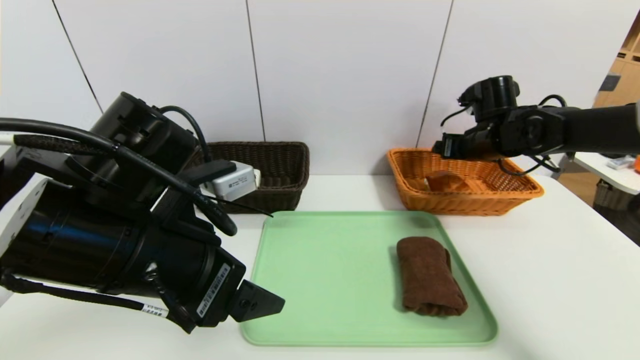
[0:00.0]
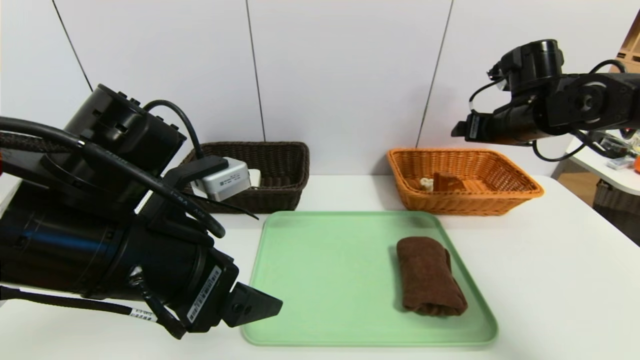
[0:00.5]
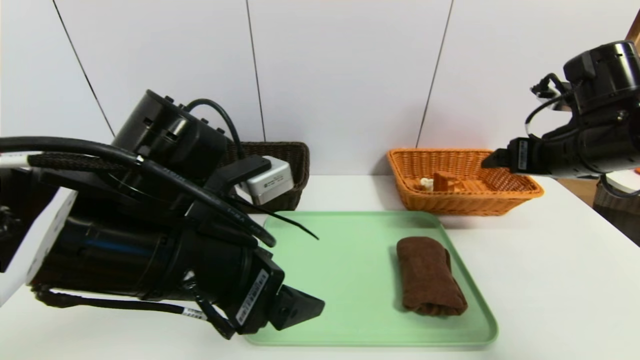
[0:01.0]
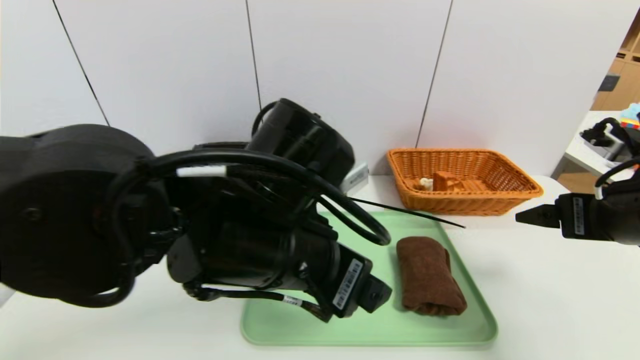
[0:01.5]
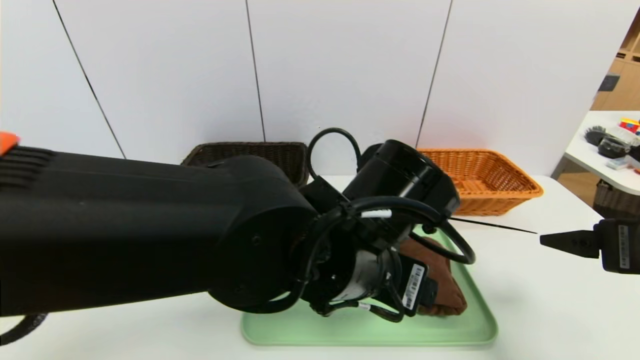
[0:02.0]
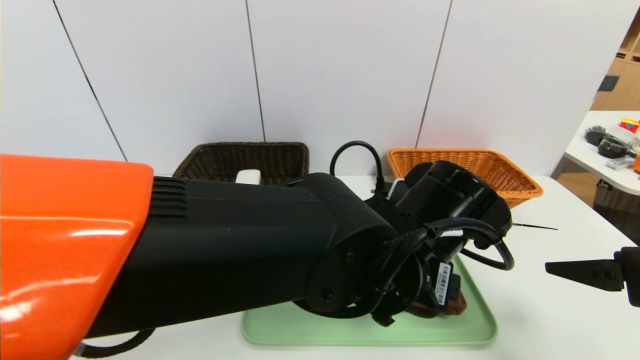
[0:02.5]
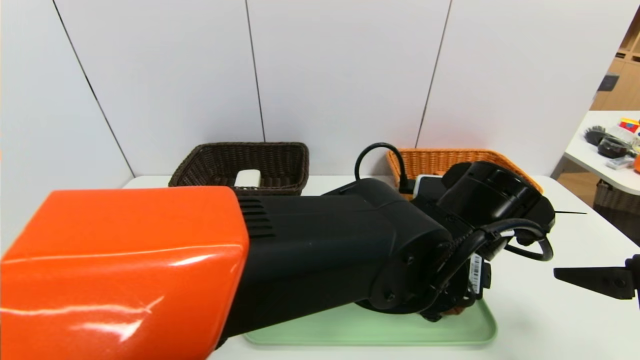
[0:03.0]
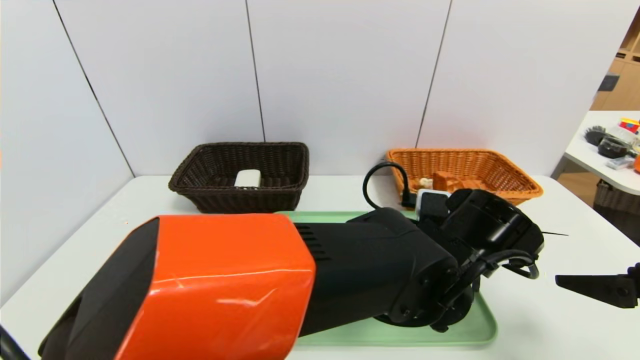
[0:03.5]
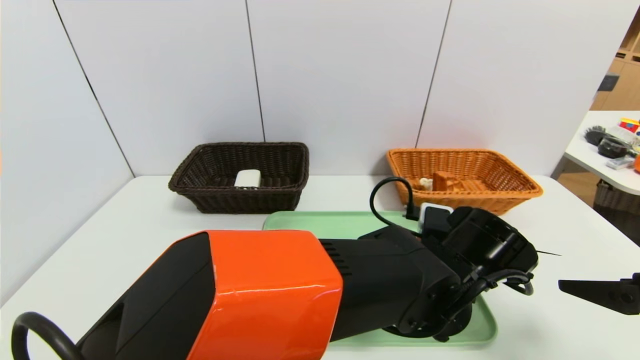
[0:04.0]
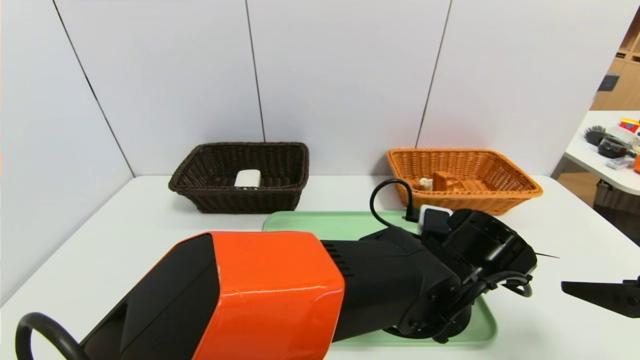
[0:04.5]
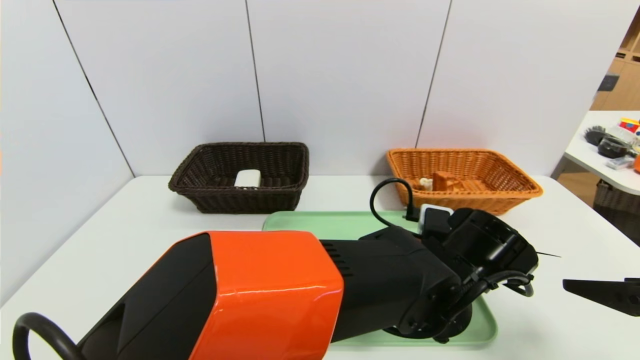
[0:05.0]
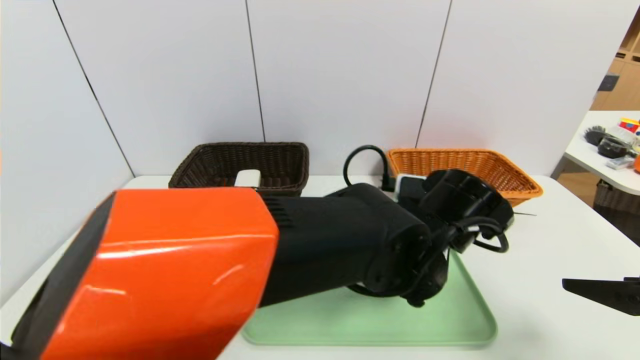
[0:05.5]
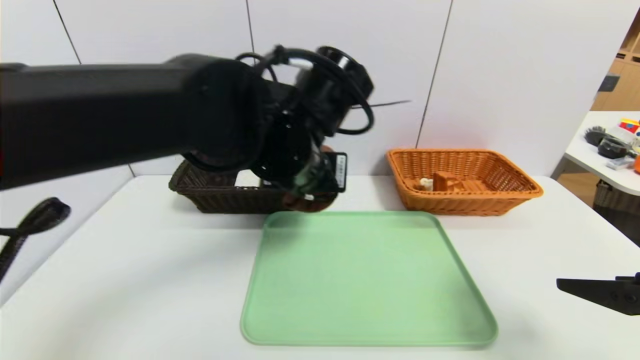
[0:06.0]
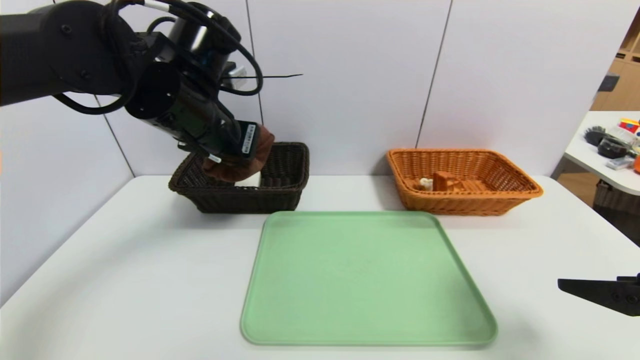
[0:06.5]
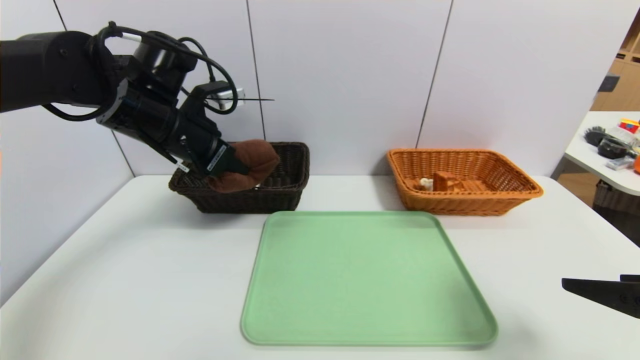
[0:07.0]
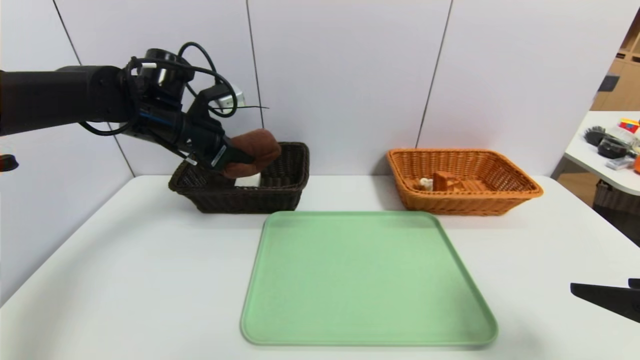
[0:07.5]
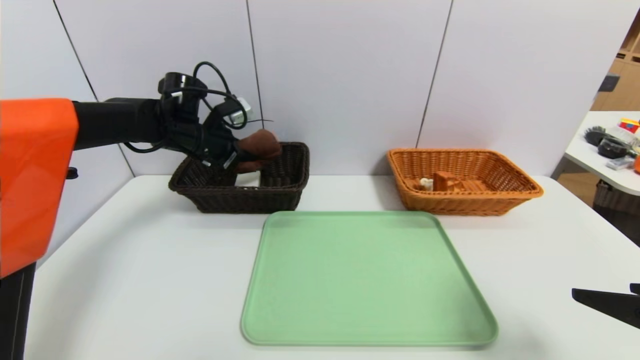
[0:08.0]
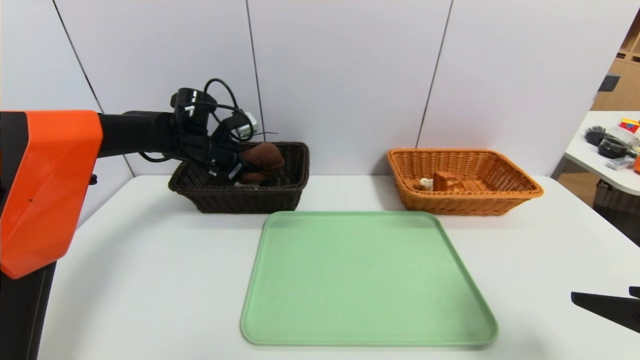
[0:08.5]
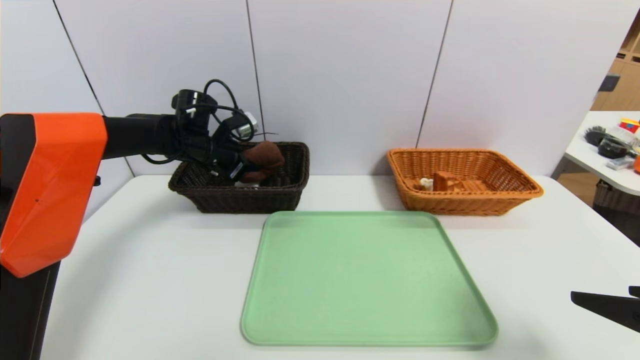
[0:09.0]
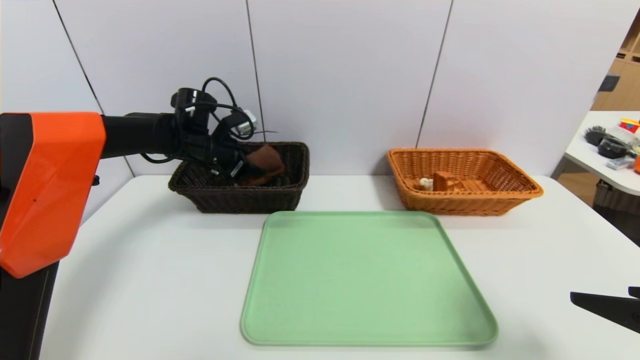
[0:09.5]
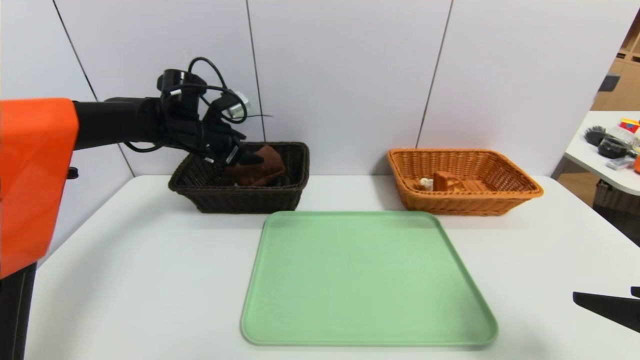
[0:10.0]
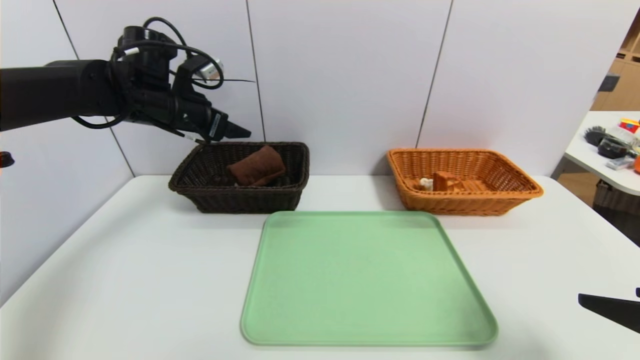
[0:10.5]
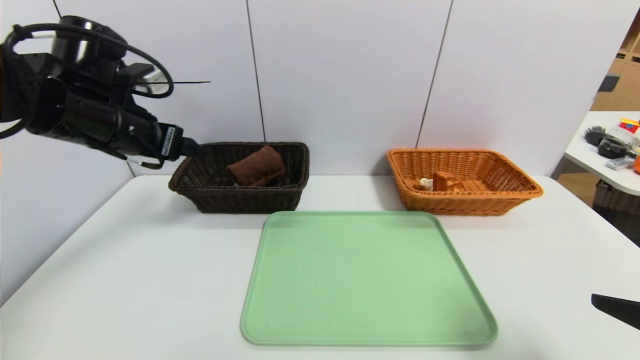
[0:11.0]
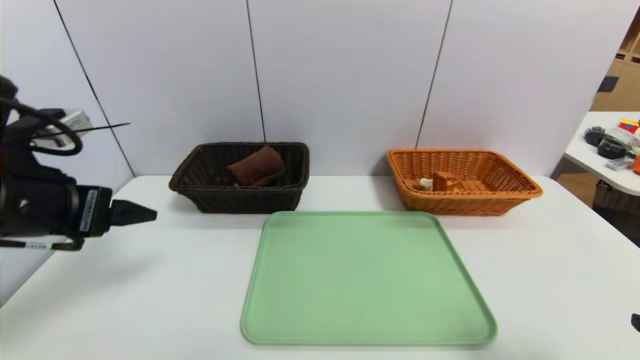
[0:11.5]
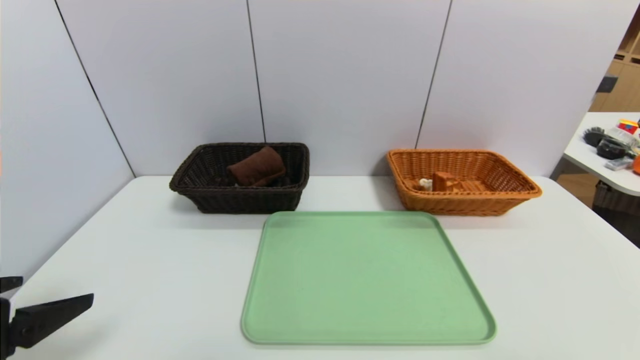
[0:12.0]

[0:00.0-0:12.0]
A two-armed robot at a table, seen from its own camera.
Task of the whole recording: place the food in the right basket with the right gripper, and place the non food items in the left basket with the left gripper.
Step, 0:01.0 to 0:10.0: Grasp the brown towel and put it in the left basket.
0:00.0 to 0:02.0: The right gripper moves backward, approximately 30 cm; the left gripper travels to the right by approximately 20 cm.
0:02.0 to 0:04.0: The left gripper travels to the right and downward by about 15 cm.
0:04.0 to 0:06.0: The left gripper travels to the left and upward by roughly 20 cm, and closes up.
0:06.0 to 0:08.0: The left gripper is displaced to the left and forward by about 25 cm.
0:08.0 to 0:10.0: The left gripper opens up.
0:10.0 to 0:12.0: The left gripper shifts roughly 40 cm backward. Meanwhile the right gripper moves backward, some 10 cm.

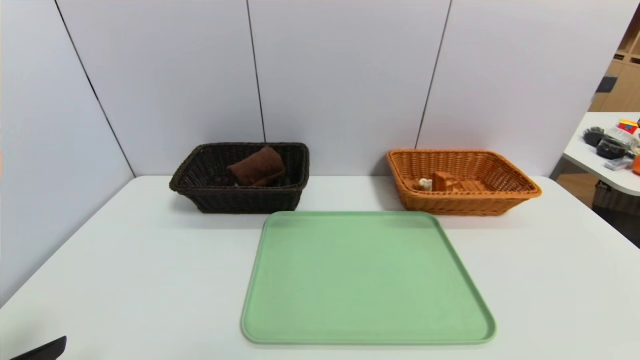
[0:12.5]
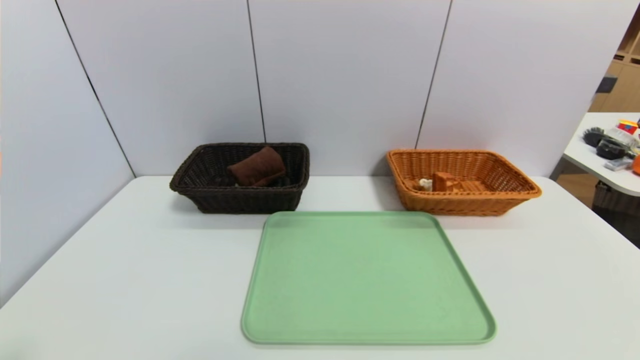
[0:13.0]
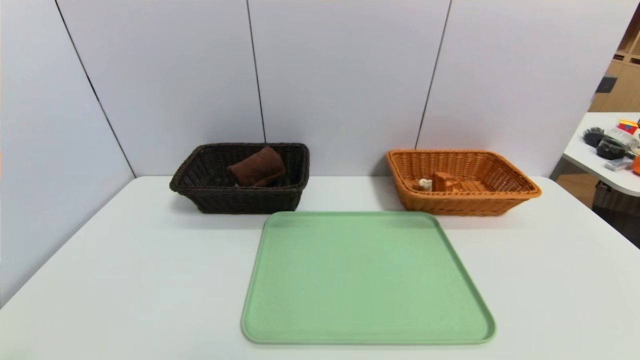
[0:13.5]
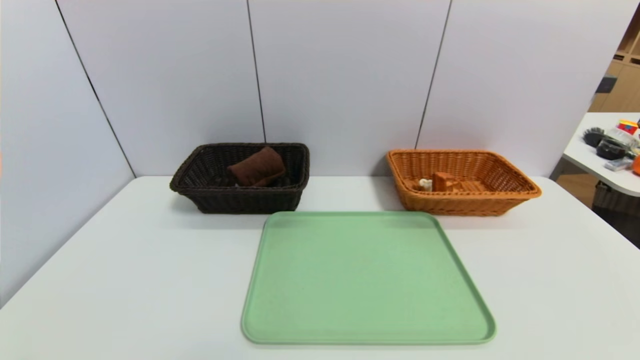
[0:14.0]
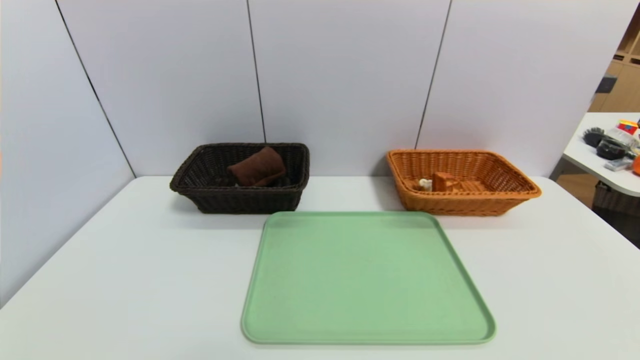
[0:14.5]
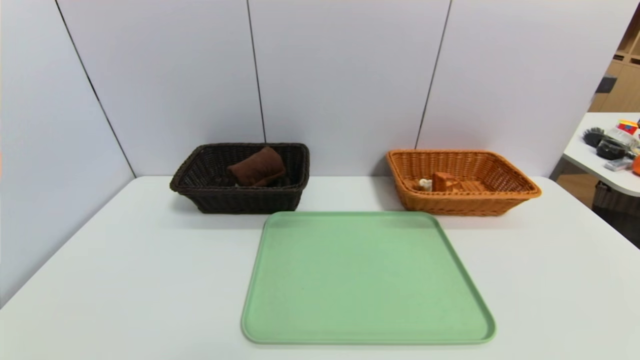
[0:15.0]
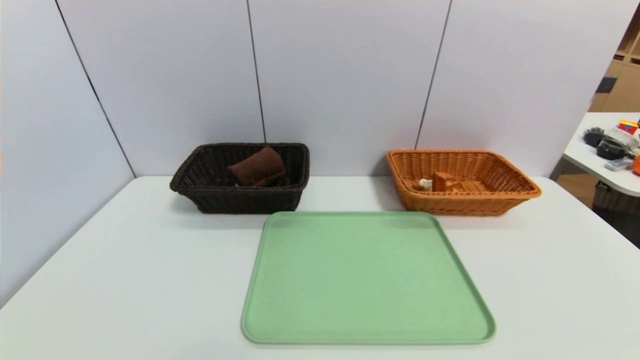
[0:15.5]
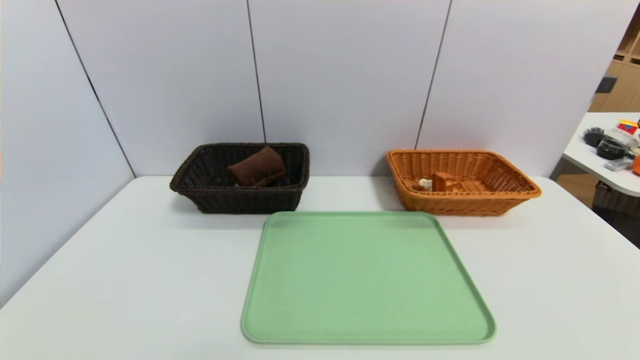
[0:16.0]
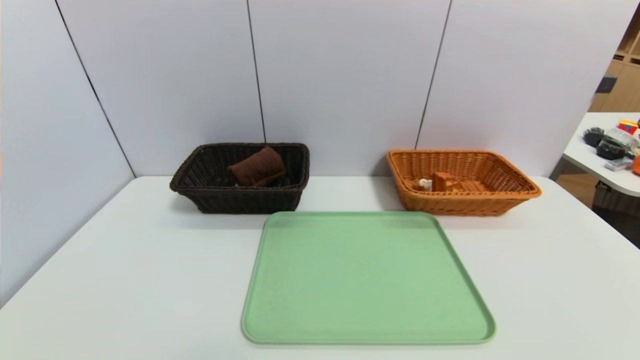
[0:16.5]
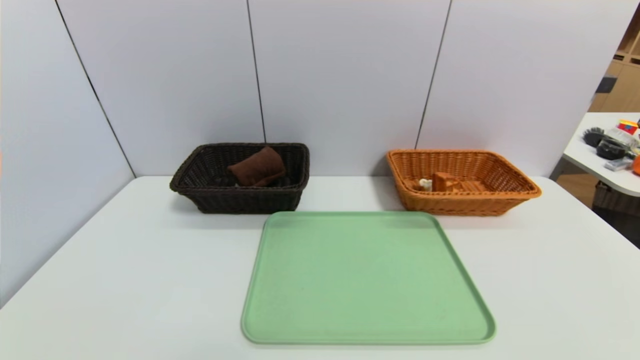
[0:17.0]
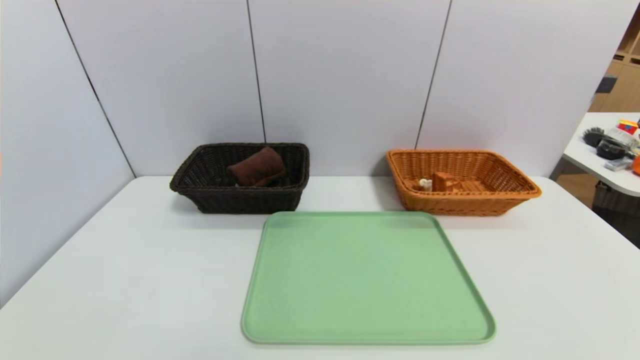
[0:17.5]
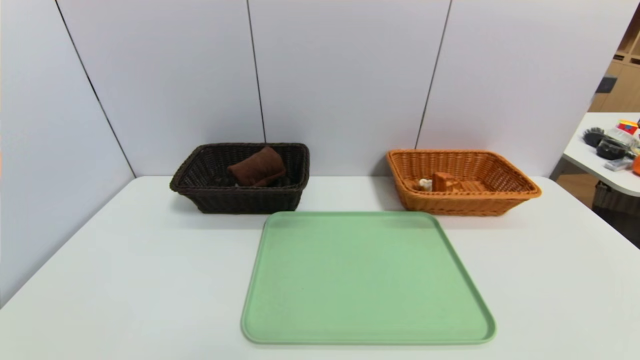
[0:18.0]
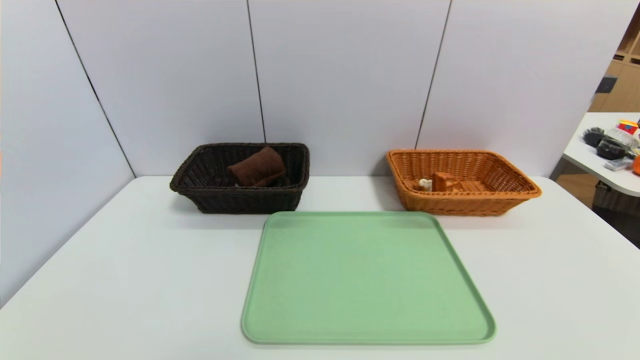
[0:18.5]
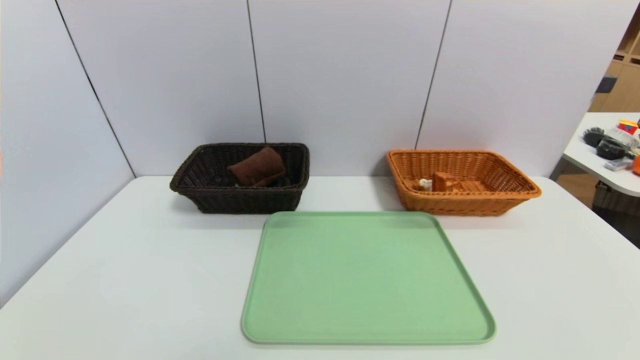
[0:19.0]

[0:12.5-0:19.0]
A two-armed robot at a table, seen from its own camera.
Task of the whole recording: place the food in the right basket with the right gripper, and place the non food items in the left basket with the left gripper.
0:12.5 to 0:14.5: The left gripper is displaced backward and downward by some 10 cm.

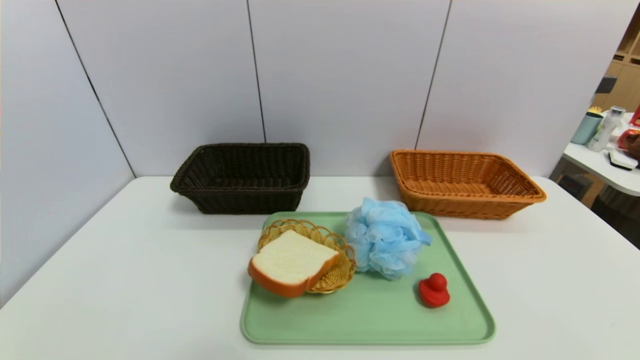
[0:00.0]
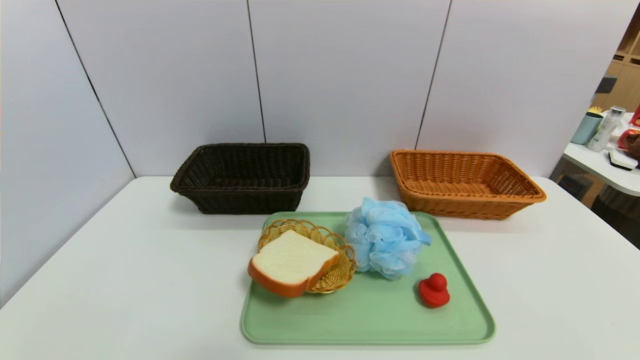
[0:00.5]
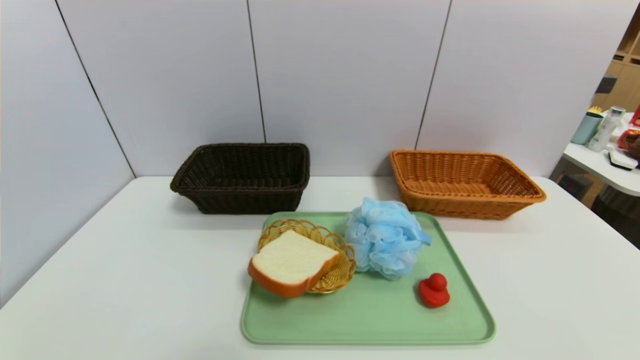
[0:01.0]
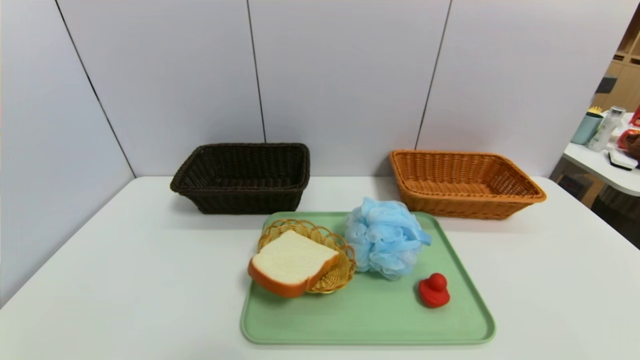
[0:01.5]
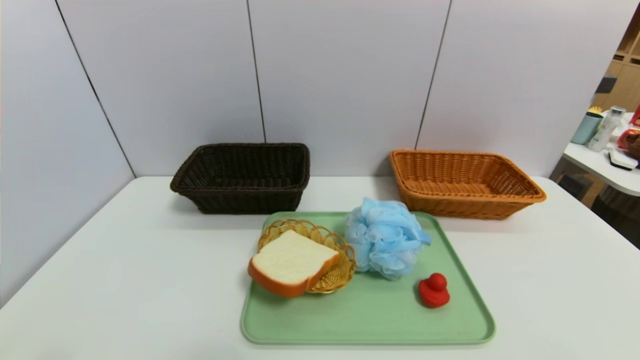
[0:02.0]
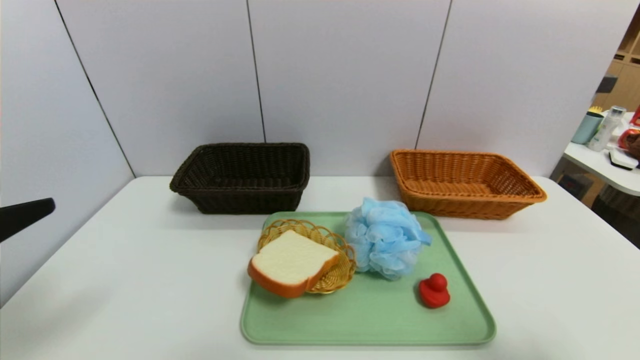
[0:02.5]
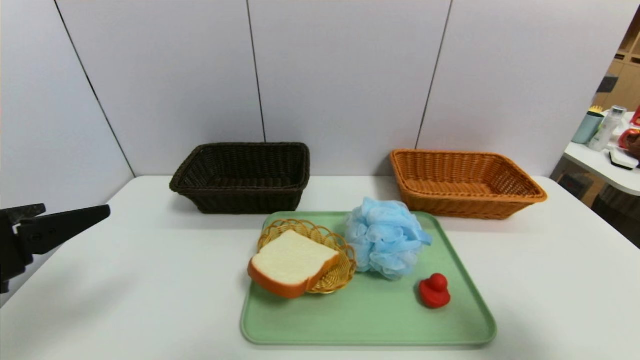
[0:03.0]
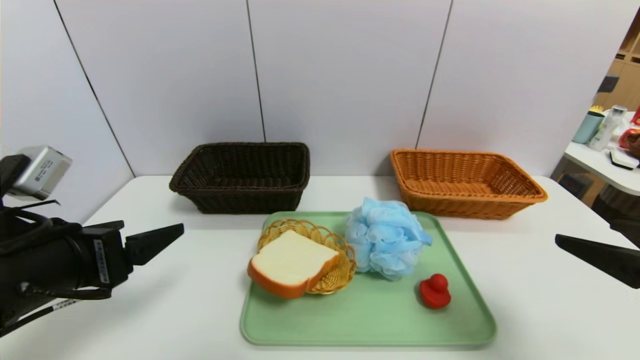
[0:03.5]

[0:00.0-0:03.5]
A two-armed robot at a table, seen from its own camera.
Task of the whole recording: place the food in the right basket with the right gripper, and place the non food items in the left basket with the left gripper.
0:02.0 to 0:03.5: Both grippers move forward, about 15 cm.
